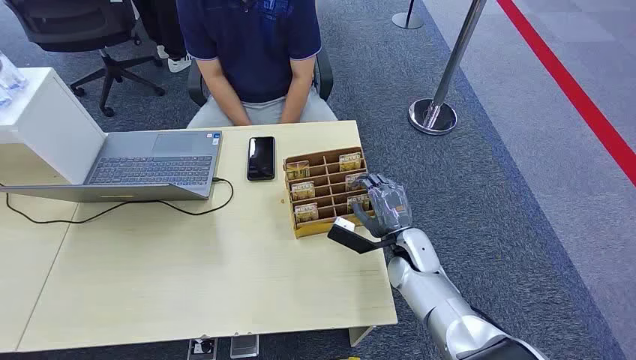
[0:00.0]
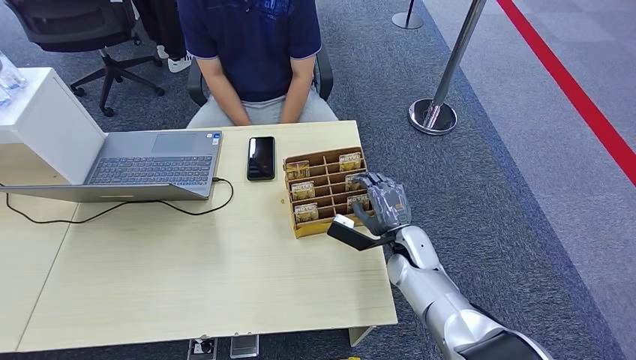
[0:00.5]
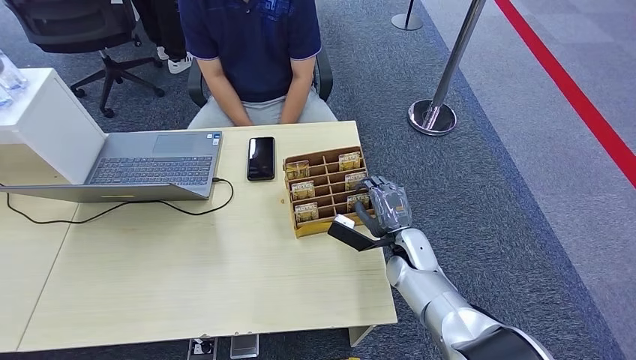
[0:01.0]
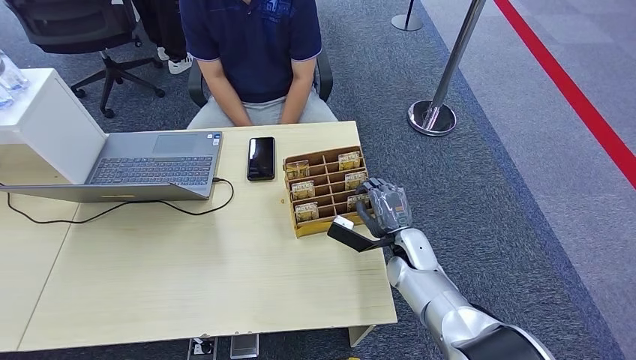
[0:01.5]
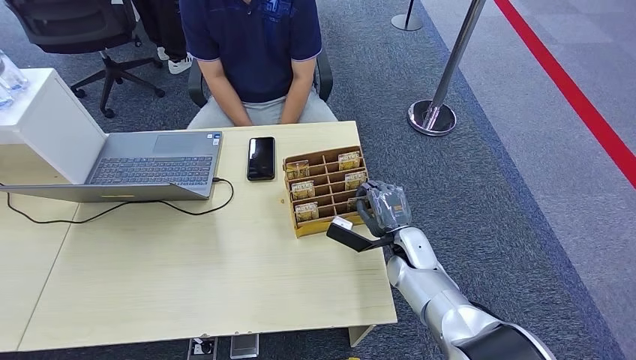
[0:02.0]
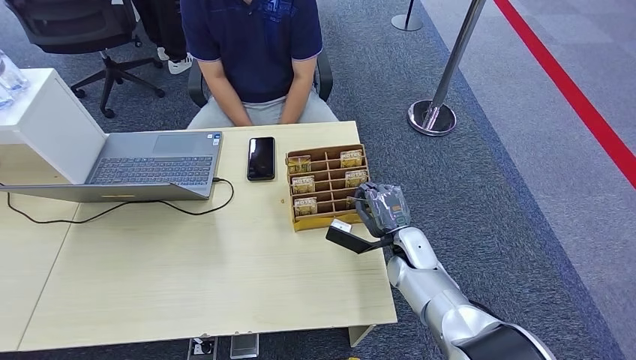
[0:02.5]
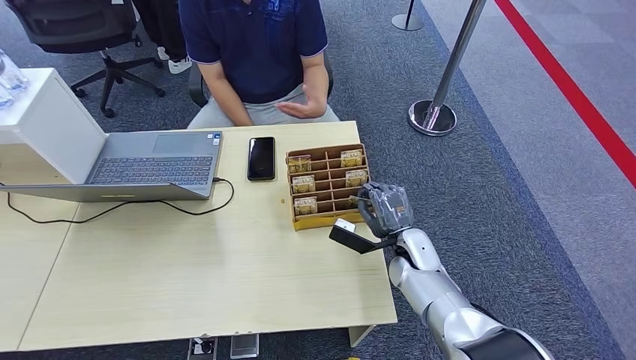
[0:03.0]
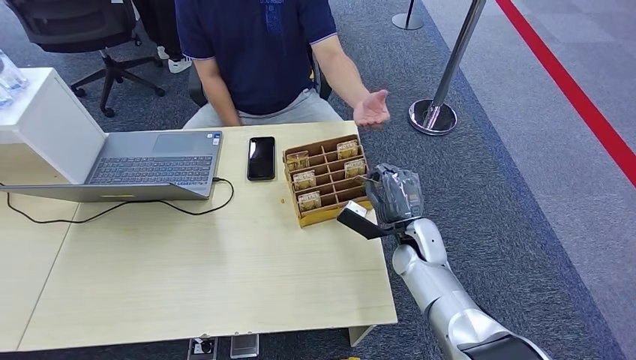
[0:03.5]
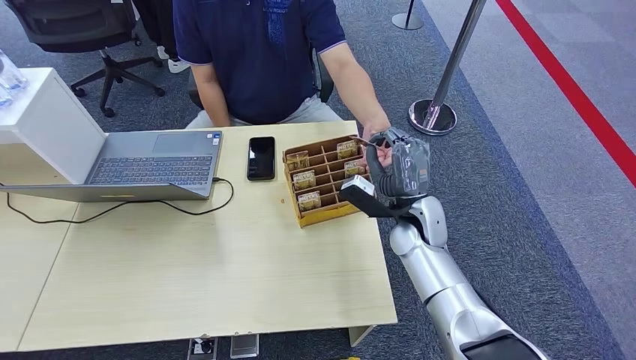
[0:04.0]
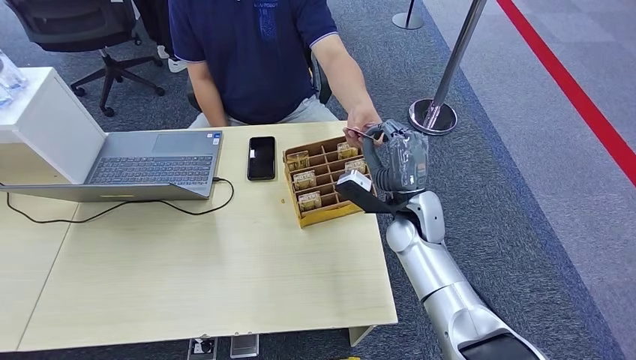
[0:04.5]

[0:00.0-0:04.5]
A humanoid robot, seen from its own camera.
Step, 0:00.0 to 0:03.5: Pick up the key card from the card box.
Step, 0:04.0 to 0:04.5: Hand the key card to the target.
0:02.0 to 0:04.5: The right hand goes approximately 10 cm upward.
